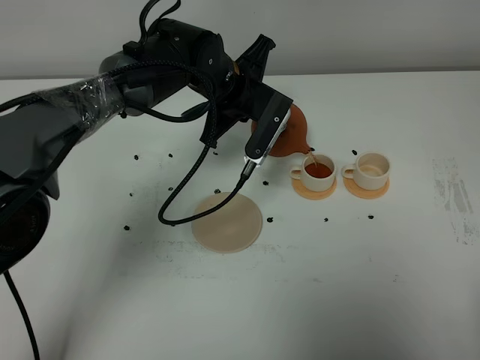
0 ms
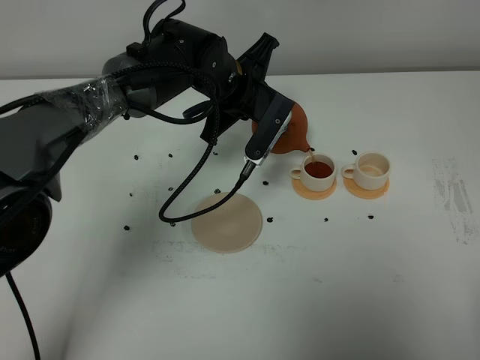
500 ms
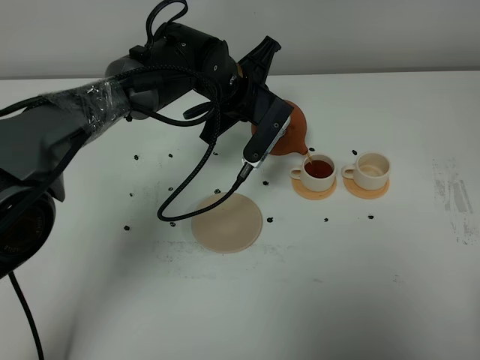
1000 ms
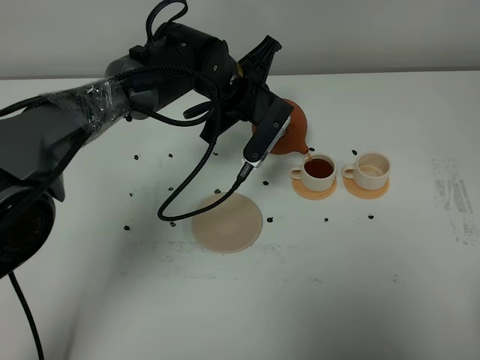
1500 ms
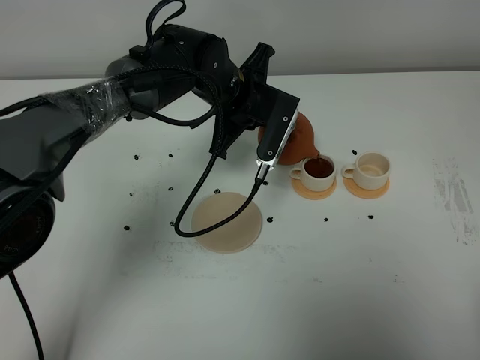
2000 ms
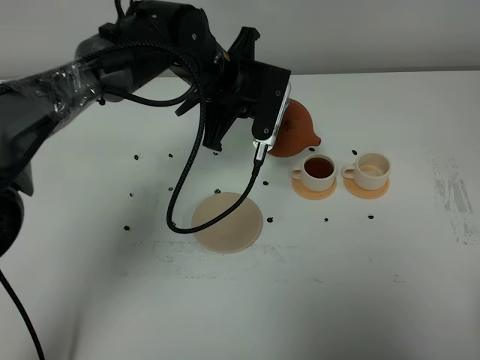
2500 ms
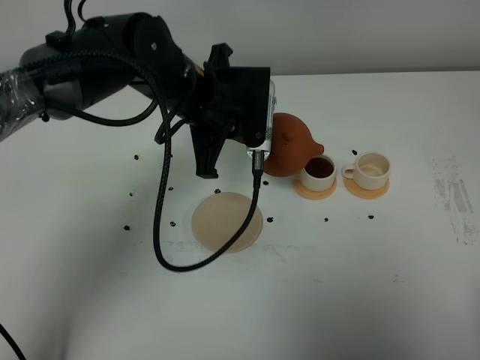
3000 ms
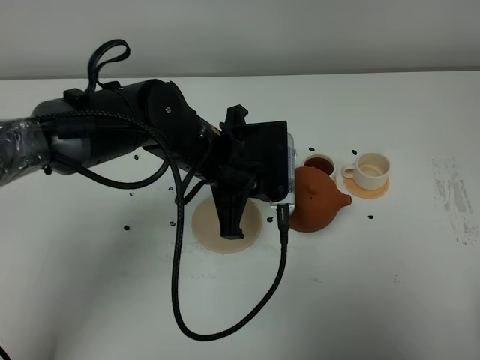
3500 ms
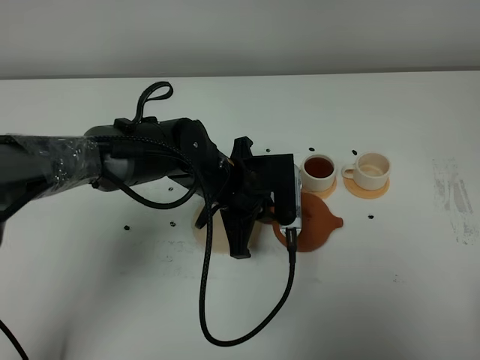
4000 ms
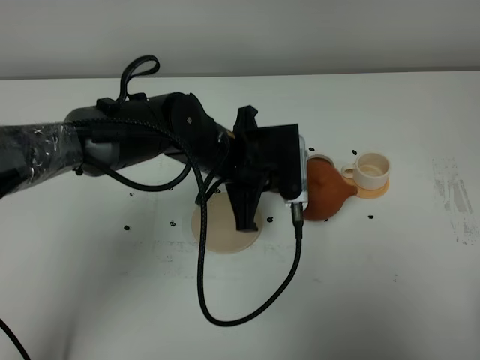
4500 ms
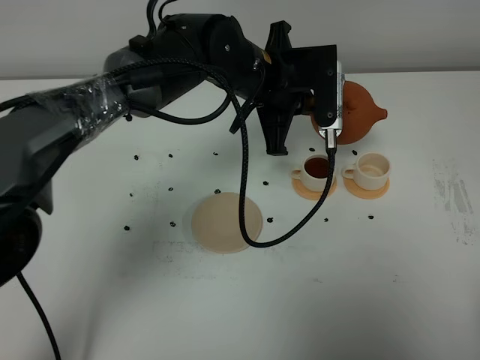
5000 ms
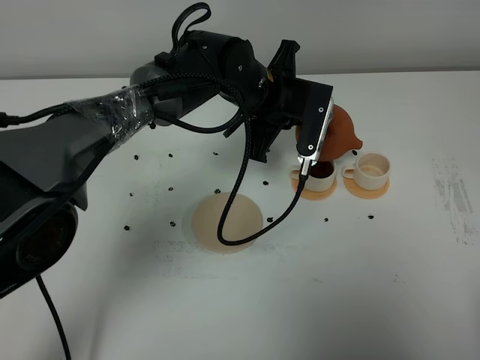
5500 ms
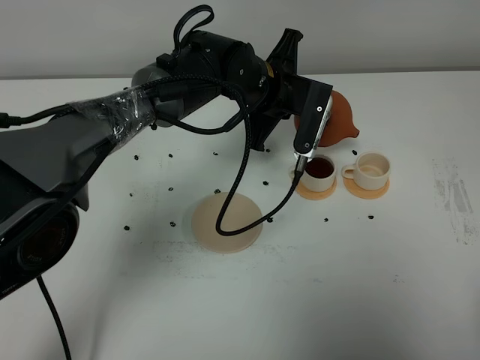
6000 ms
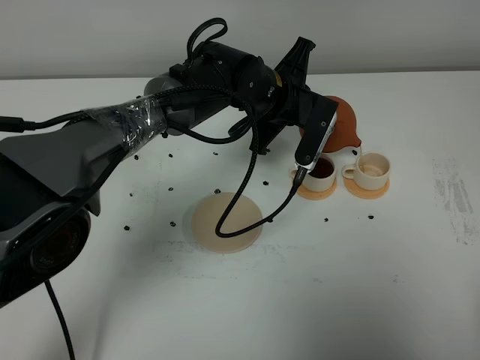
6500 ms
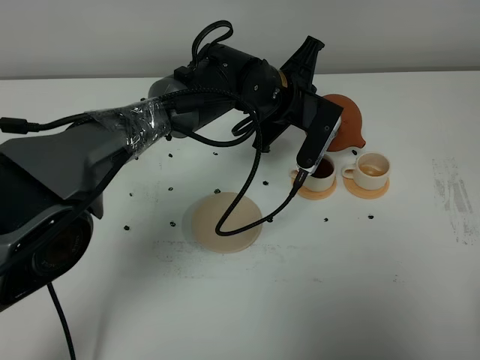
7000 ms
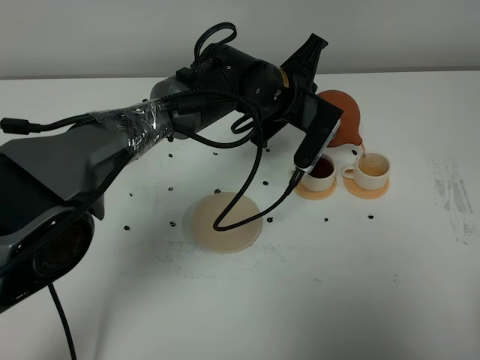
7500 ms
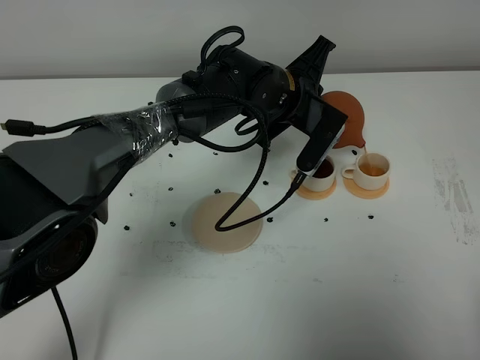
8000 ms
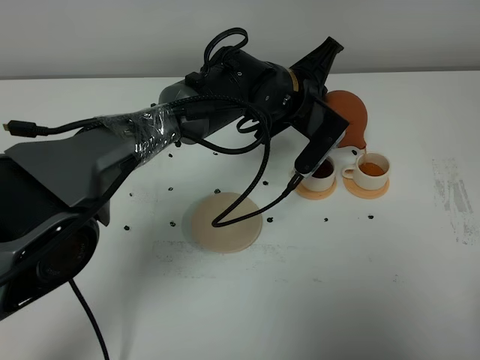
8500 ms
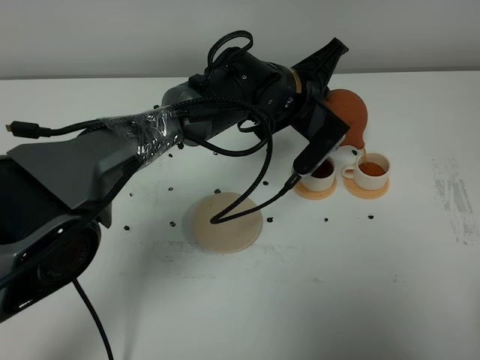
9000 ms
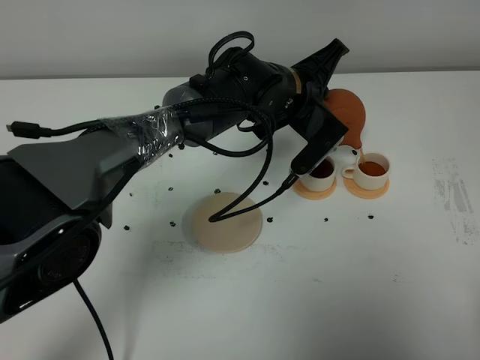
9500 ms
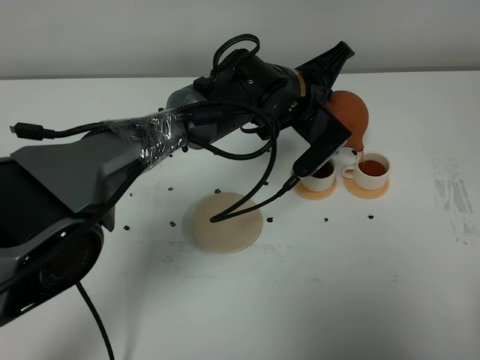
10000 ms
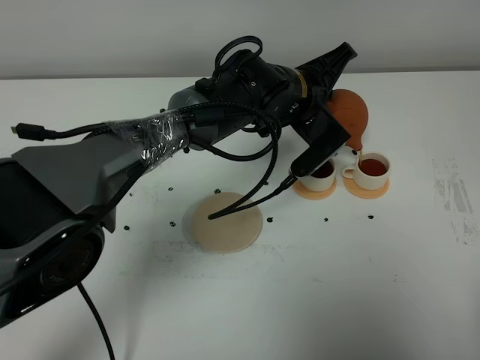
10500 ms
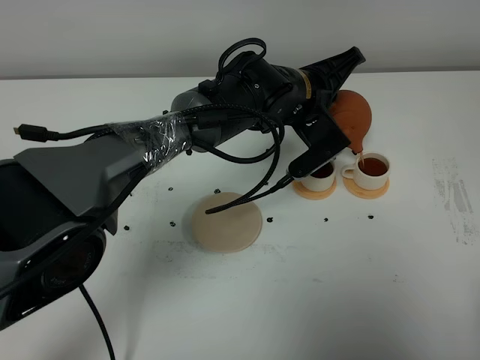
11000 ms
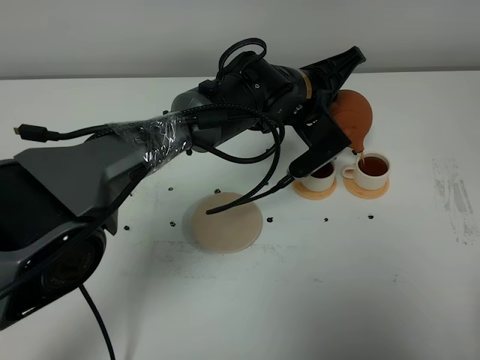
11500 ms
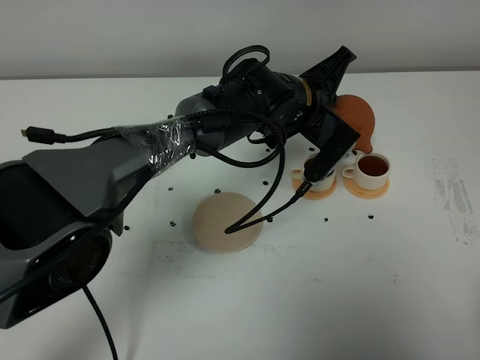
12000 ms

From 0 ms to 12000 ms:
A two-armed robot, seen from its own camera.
Task of the whole recording: grasp the brown teapot and pour the tea into the two white teacups one by one, put the brown teapot back in its original place.
Step, from 0 ms to 2500 ms: Pour tea into the teacup with the left gripper.
From 0 ms to 2000 ms: The grippers stay close to where they were, moving slightly.
From 2000 ms to 4000 ms: The left gripper heads backward and downward, covering about 10 cm.
From 4000 ms to 6000 ms: The left gripper travels forward, upward and to the right by some 15 cm.
From 6000 ms to 8000 ms: The grippers move only a little.
From 8000 ms to 10000 ms: The grippers stay close to where they were, moving slightly.
From 10000 ms to 12000 ms: The grippers stay close to where they were, moving slightly.

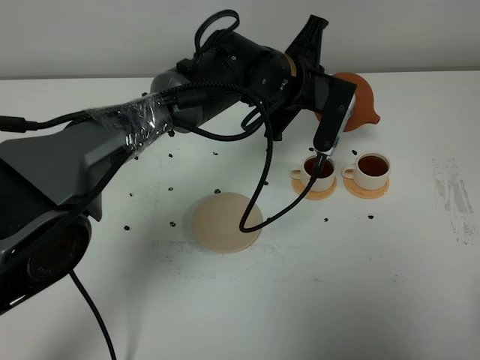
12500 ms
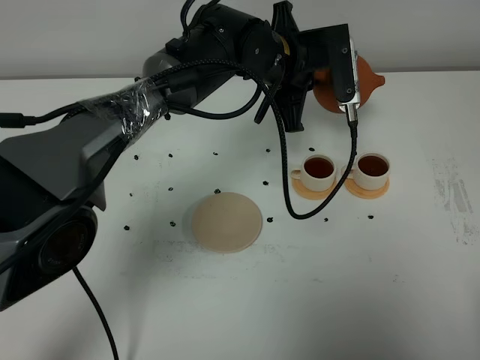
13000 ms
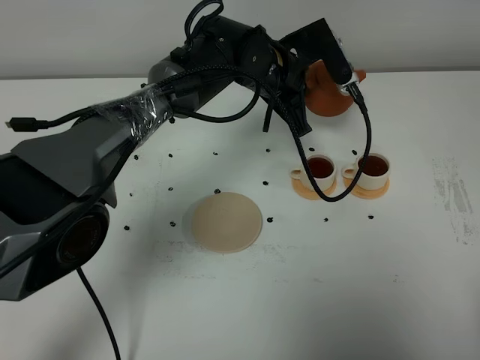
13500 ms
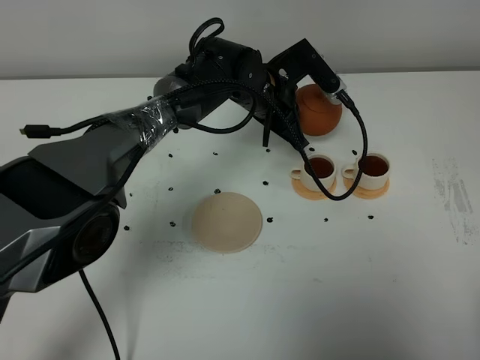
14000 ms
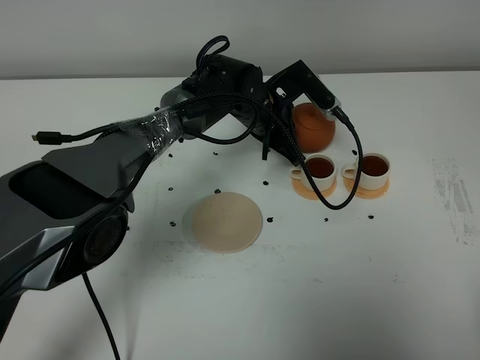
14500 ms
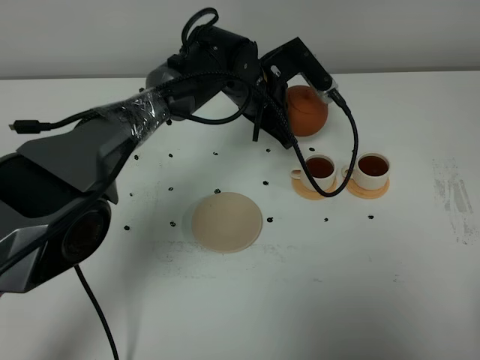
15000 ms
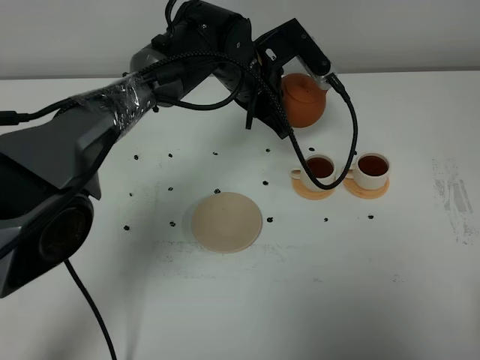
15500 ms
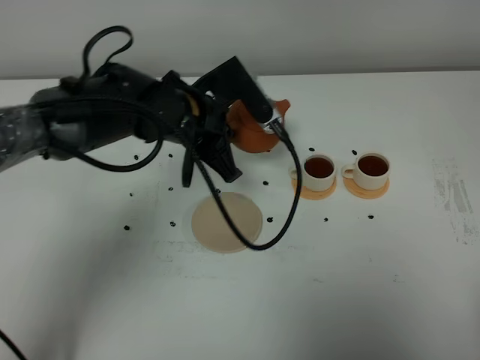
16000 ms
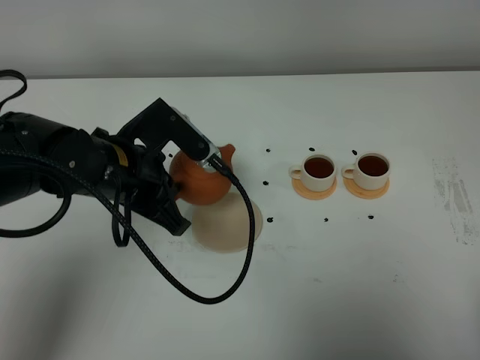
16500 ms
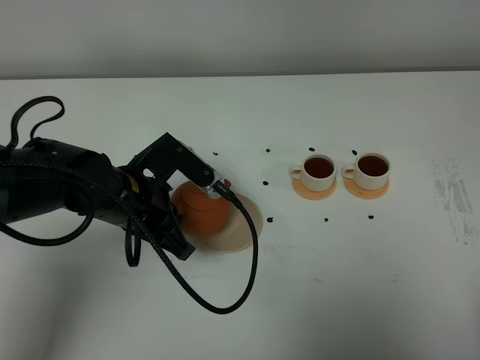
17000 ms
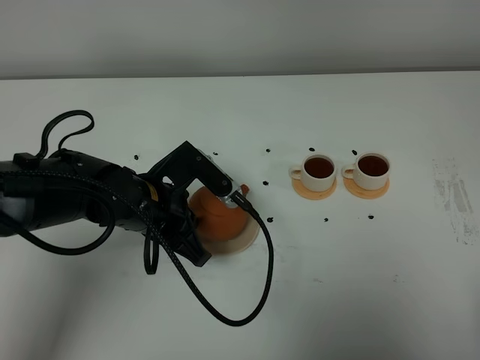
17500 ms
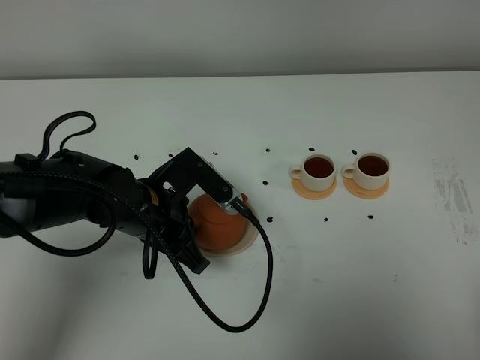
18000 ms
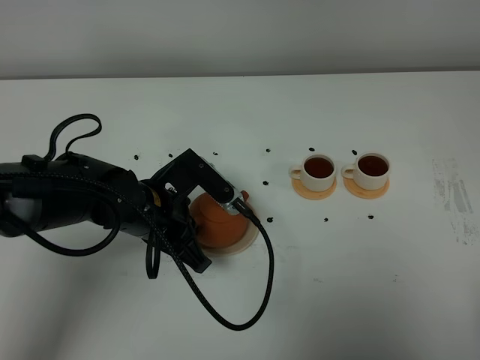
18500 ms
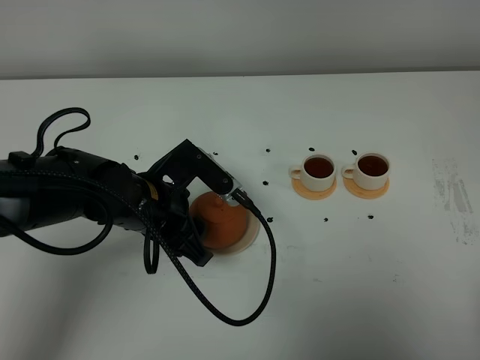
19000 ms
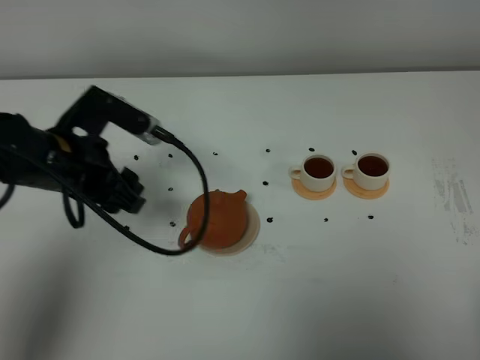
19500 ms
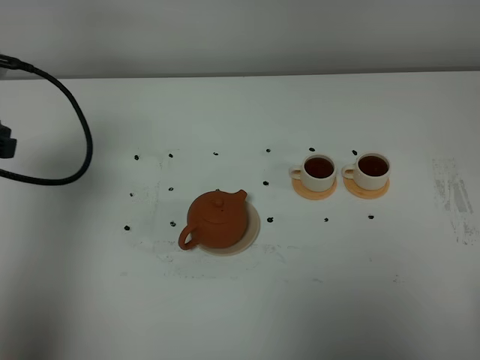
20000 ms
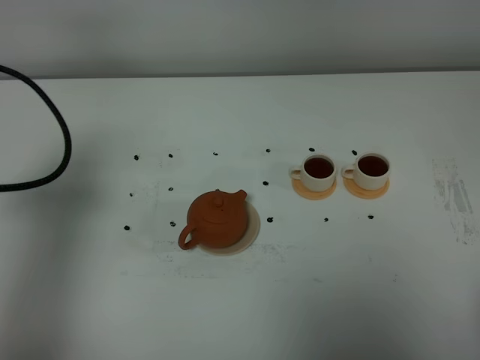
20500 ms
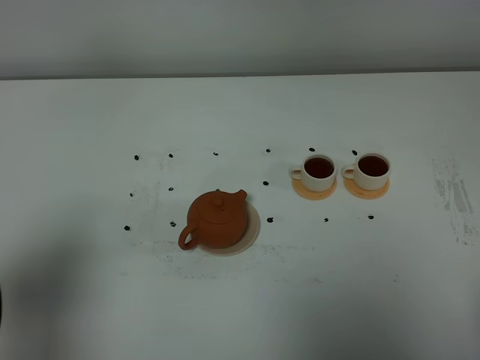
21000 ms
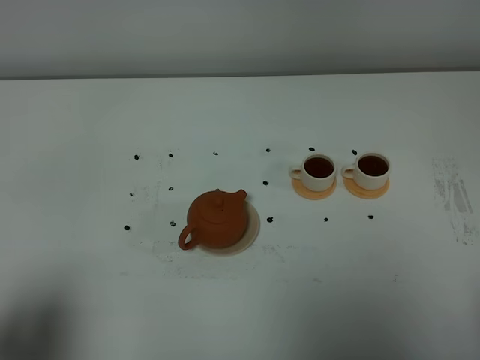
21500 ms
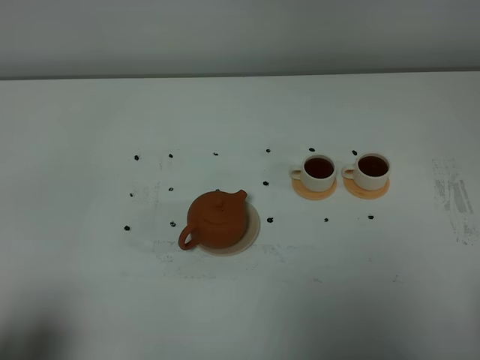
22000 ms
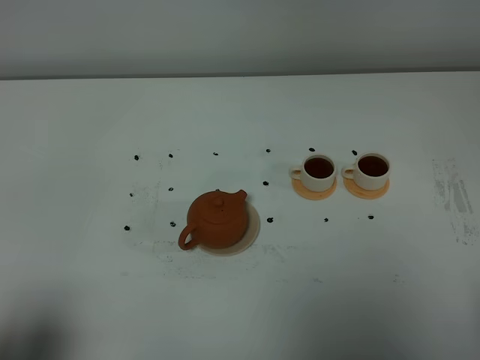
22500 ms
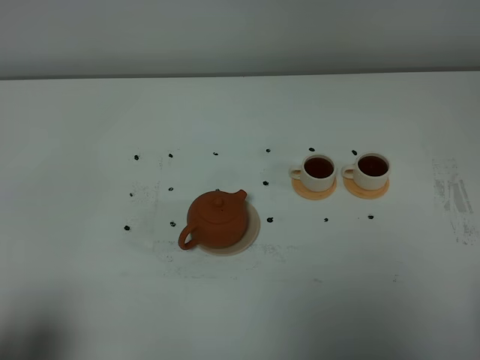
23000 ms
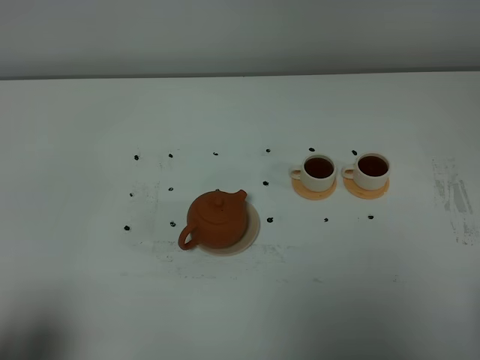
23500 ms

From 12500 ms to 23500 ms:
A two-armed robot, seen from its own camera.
Task of the whole recording: grasp the brown teapot and pour the tea into the two white teacups one by one, put the brown teapot back in its original place.
From 12500 ms to 14500 ms: The left gripper is displaced downward by about 10 cm.
From 14500 ms to 16000 ms: The left gripper travels backward, to the left and upward by approximately 15 cm.
From 16000 ms to 18000 ms: The left gripper shifts about 10 cm backward and downward.
From 18000 ms to 20000 ms: The left gripper moves to the left and upward, approximately 25 cm, and opens.
From 20000 ms to 21500 ms: The left gripper is displaced backward by roughly 25 cm.
